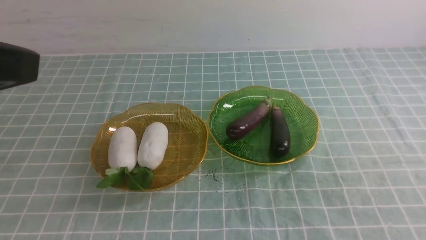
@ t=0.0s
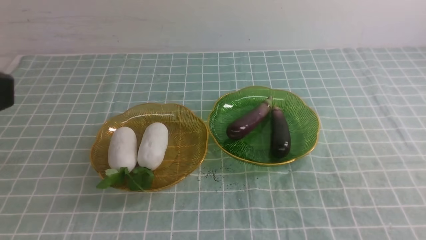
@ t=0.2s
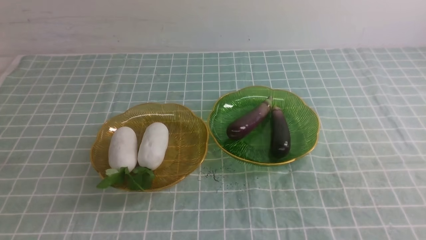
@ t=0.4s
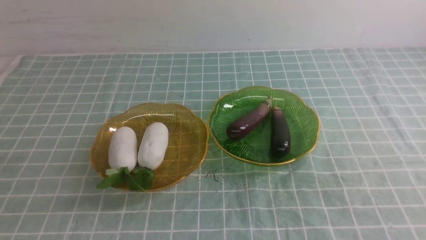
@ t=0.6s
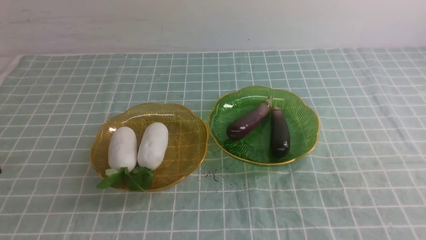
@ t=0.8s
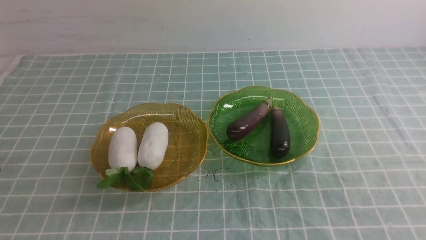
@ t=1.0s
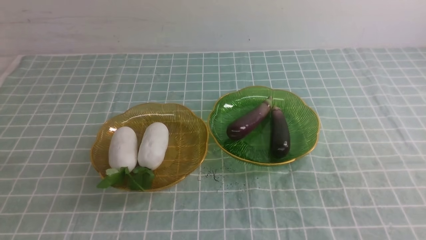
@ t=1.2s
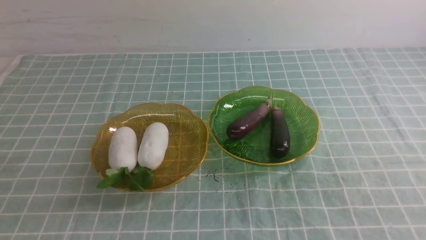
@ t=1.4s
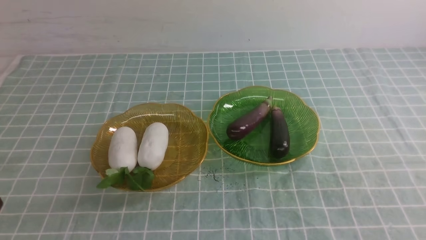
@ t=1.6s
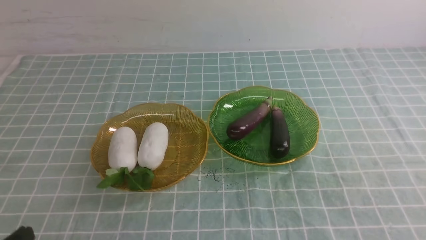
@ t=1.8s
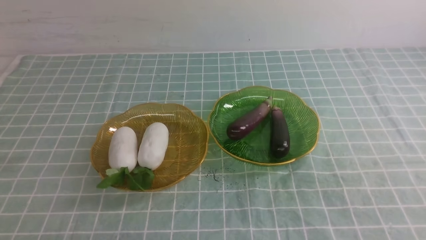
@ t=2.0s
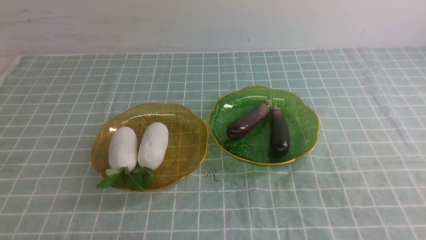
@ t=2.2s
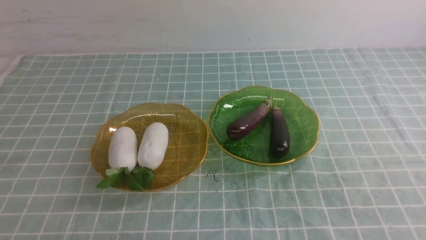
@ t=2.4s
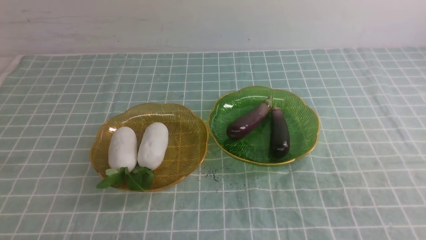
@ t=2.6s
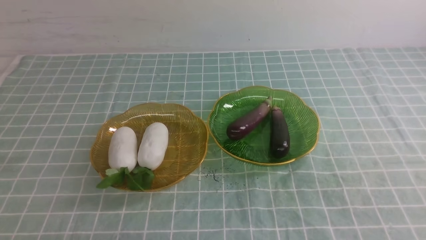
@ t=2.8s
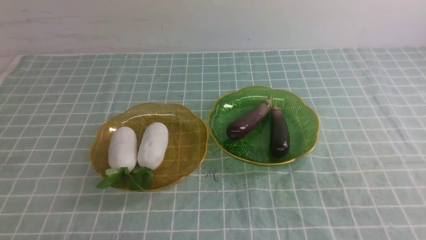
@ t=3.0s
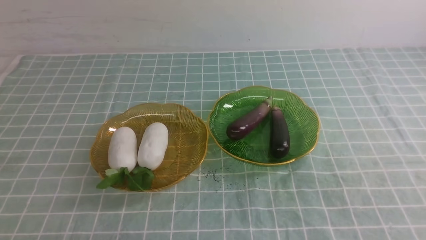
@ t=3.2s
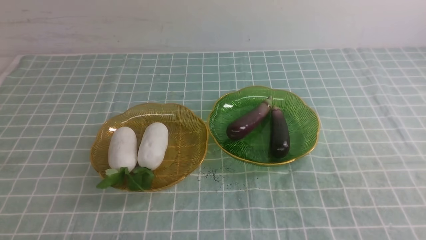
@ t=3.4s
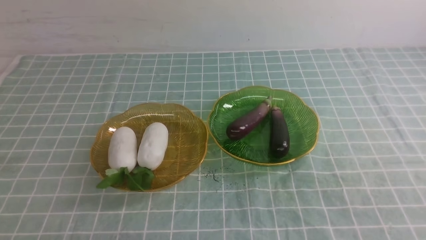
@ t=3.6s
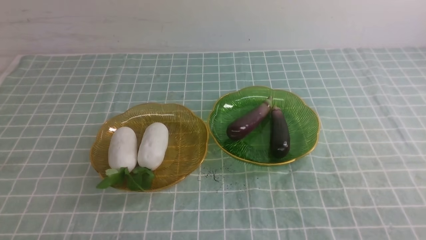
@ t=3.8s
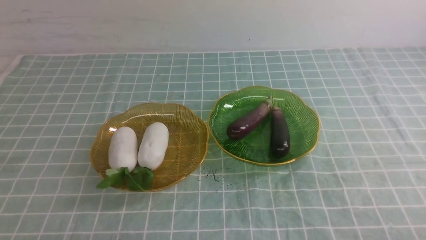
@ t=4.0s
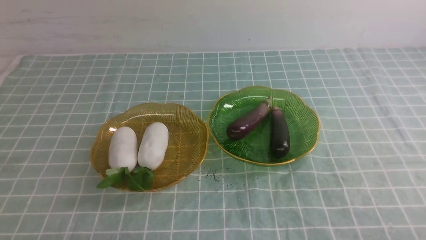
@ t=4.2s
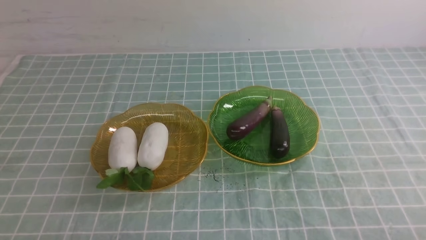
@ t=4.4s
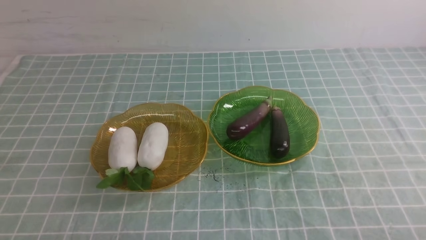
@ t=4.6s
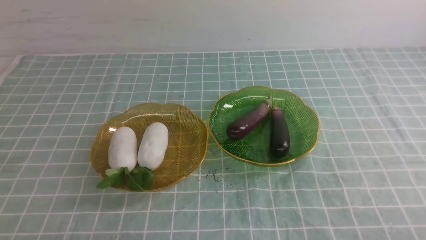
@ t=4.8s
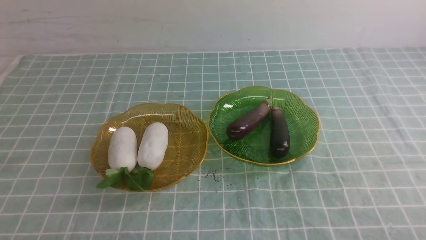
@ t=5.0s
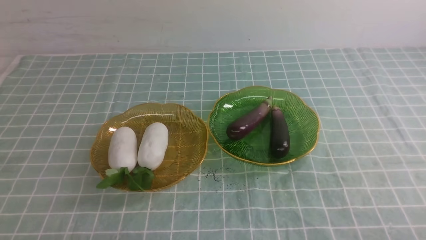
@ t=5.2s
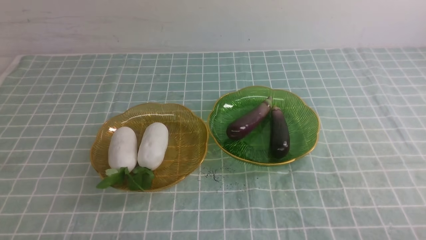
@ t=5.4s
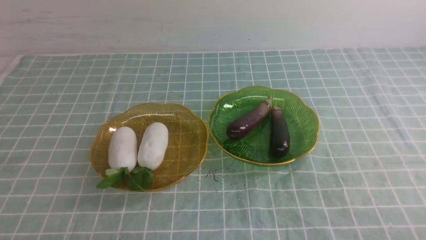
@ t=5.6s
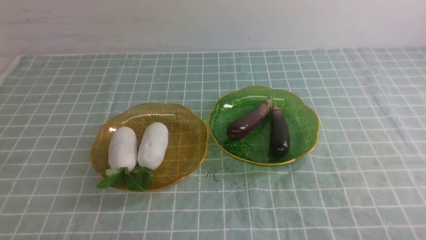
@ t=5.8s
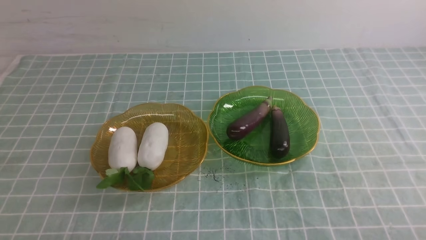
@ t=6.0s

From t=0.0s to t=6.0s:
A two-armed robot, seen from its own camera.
From t=0.0s to t=1.6s: The left gripper moves downward, roughly 20 cm.
From t=4.4s to t=6.0s: Both grippers stay put.

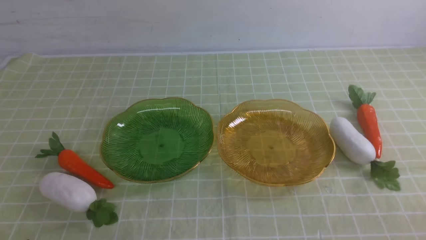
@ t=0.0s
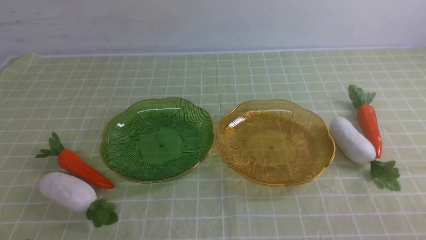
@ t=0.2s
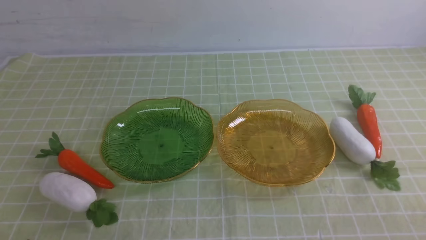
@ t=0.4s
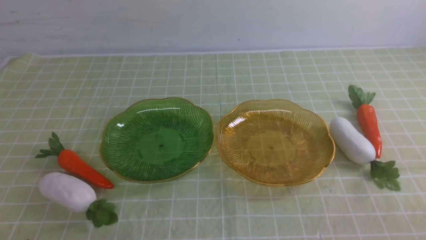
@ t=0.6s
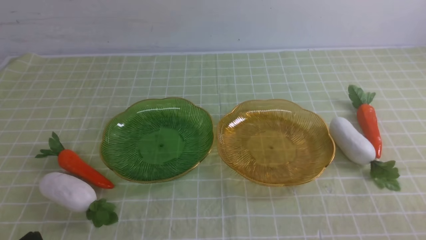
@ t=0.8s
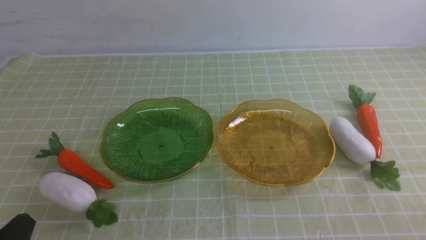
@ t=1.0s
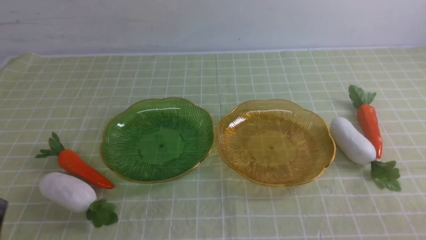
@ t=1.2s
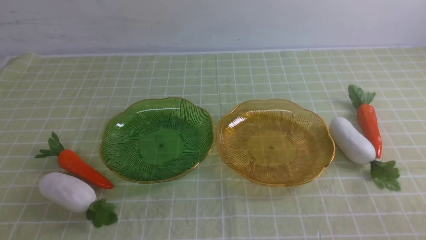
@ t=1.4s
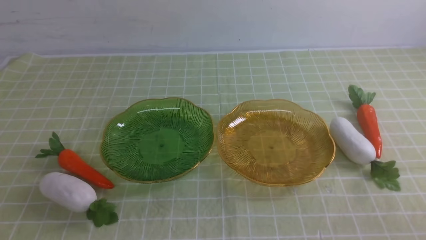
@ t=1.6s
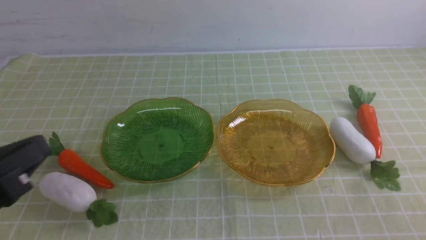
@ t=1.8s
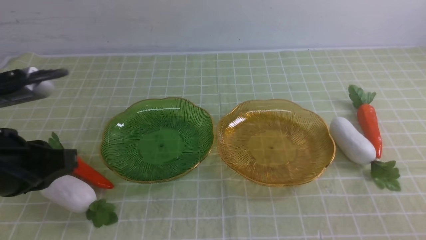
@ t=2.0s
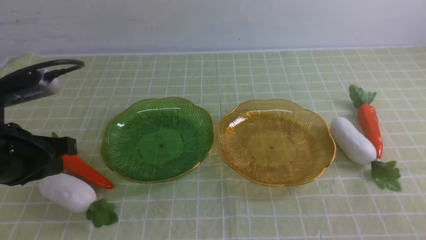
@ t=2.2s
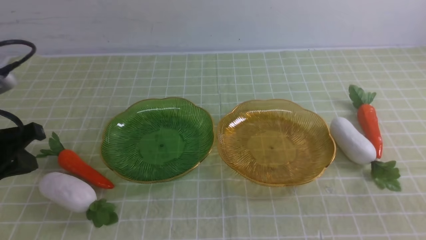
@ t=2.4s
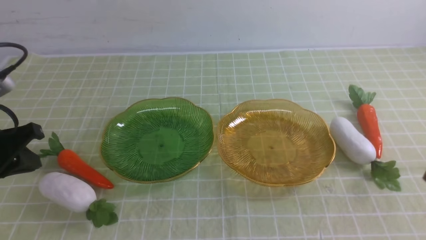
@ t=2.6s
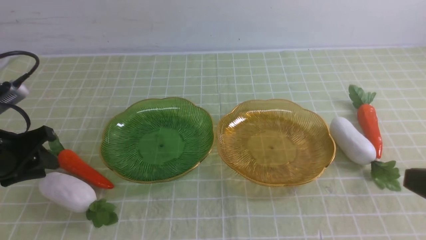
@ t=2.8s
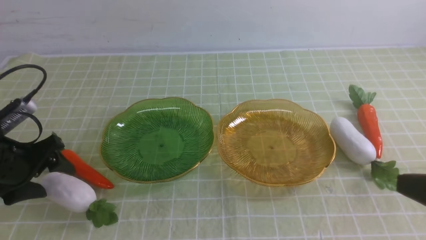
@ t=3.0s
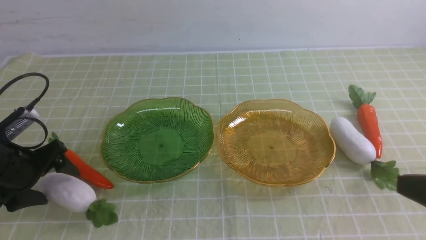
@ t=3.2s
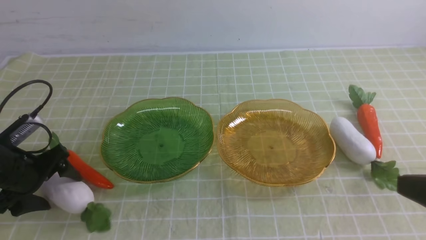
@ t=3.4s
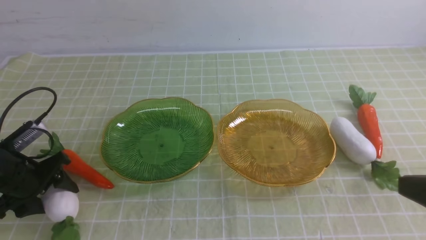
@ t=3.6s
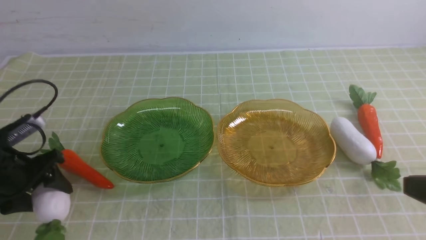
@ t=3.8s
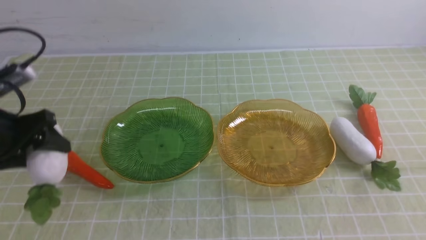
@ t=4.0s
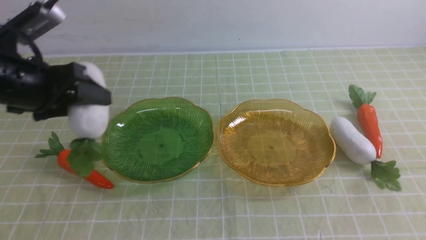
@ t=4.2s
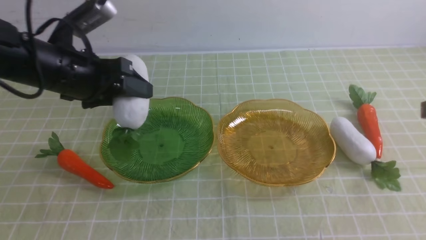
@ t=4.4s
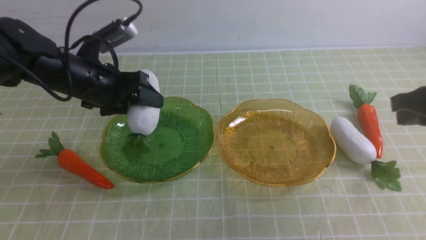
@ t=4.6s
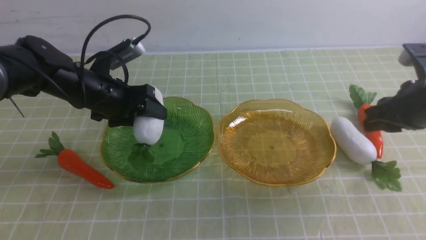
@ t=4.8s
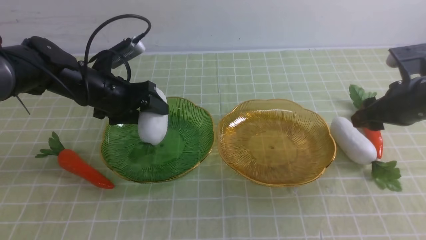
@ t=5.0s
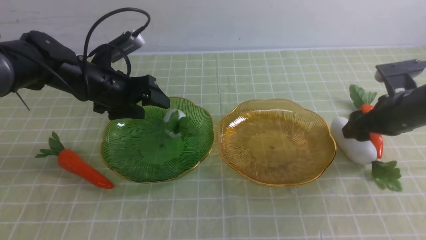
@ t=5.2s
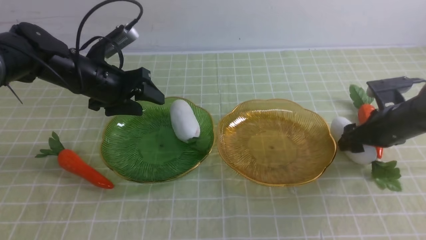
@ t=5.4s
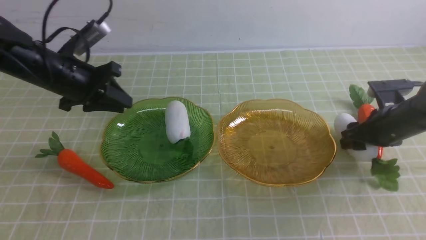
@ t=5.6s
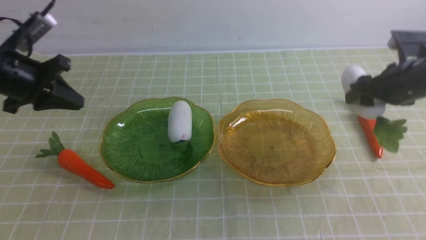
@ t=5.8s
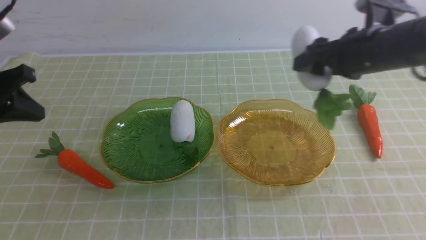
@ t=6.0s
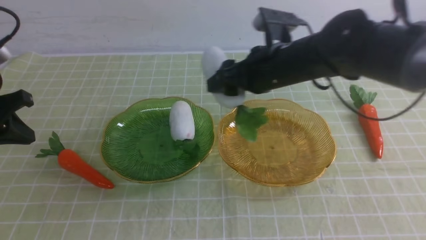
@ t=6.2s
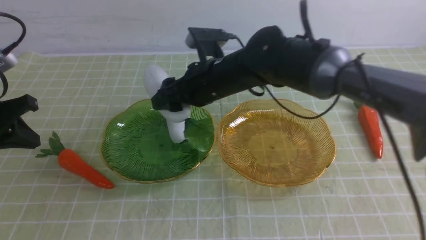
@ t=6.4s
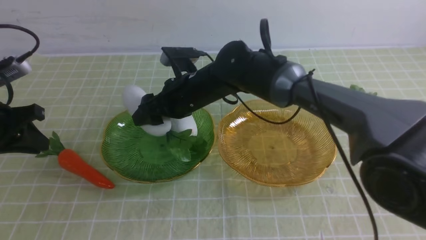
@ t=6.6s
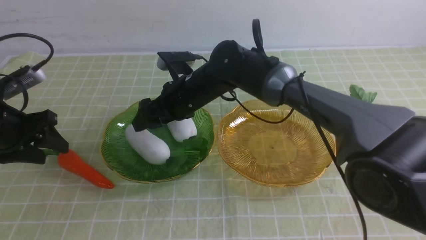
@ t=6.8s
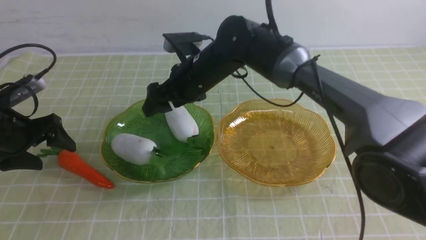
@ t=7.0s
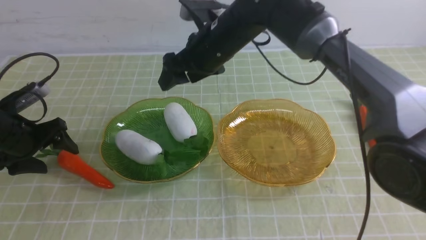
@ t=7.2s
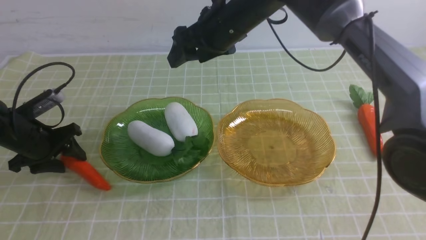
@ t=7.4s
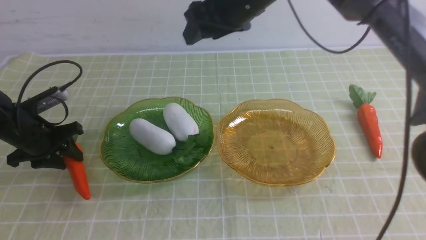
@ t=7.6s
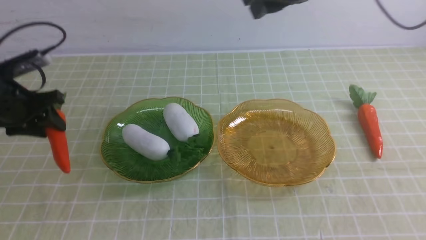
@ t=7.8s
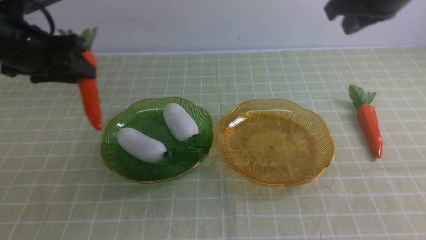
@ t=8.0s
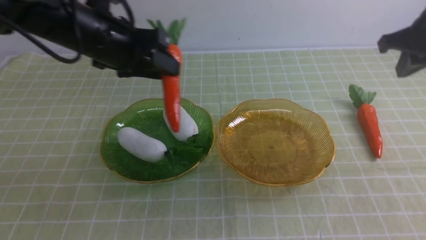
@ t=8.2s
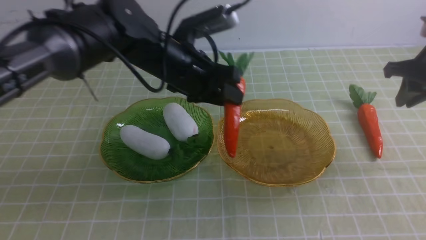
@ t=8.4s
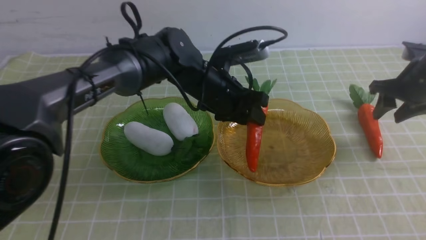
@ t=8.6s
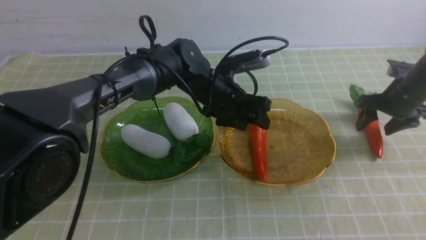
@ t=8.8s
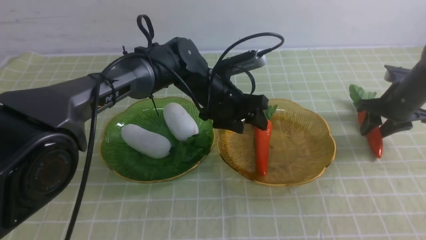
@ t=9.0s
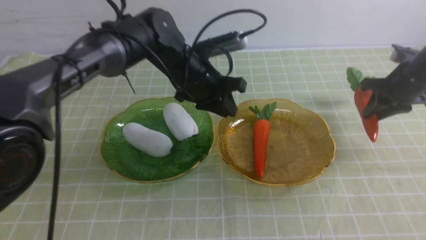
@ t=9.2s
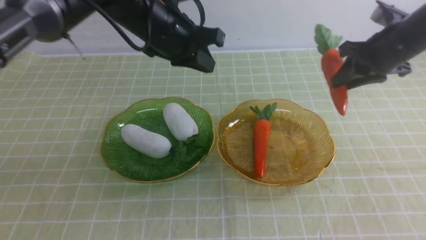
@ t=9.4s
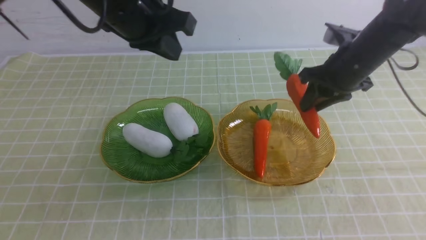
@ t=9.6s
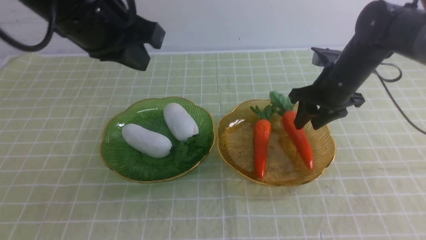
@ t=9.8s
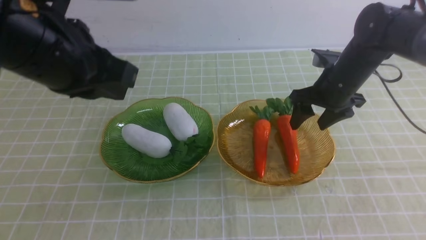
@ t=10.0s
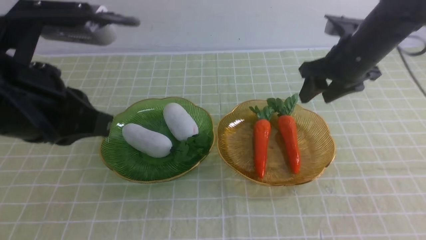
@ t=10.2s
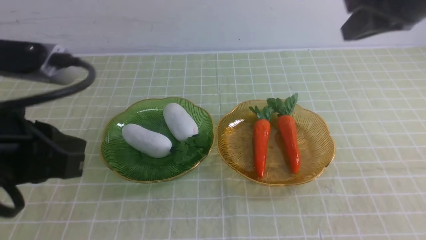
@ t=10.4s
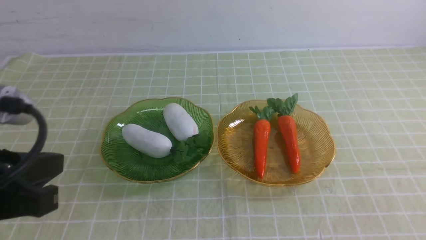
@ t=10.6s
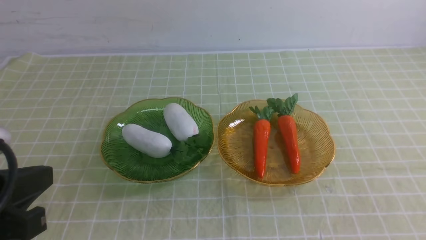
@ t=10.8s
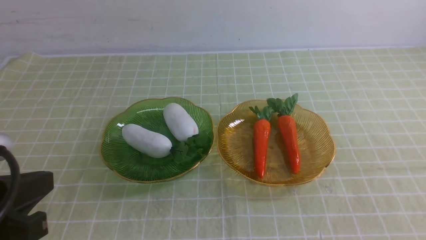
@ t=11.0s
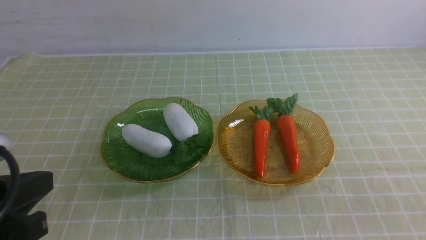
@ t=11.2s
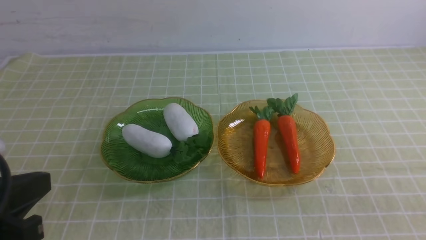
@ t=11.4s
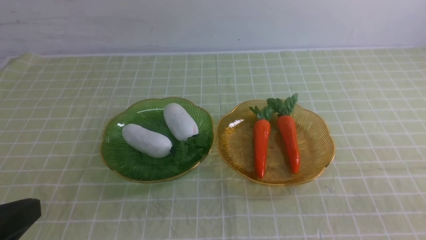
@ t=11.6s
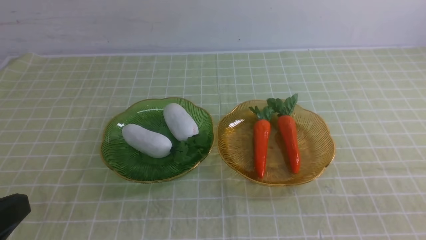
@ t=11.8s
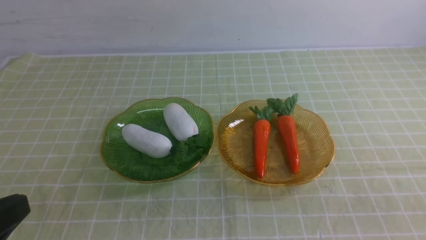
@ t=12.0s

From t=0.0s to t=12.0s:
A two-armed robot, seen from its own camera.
Step, from t=0.0s to t=5.2s: use the left arm to grab a radish and put it into the left plate.
Step, from t=5.4s to t=7.4s: use the right arm to grab a radish and put it into the left plate.
Step, from t=7.8s to t=9.4s: use the left arm to grab a carrot and put it into the right plate.
Step, from t=9.6s to t=11.0s: use the right arm to grab a carrot and put it into the right plate.
From t=1.6s to t=3.0s: The right gripper heads upward and forward, covering roughly 10 cm. Meanwhile the left gripper heads forward and downward, covering about 25 cm, and opens its fingers.
From t=3.0s to t=4.4s: The left gripper heads to the right, upward and forward, covering approximately 15 cm; the right gripper is displaced forward by approximately 10 cm.
From t=4.4s to t=6.0s: The right gripper heads forward and to the left, covering some 20 cm, moves about 15 cm downward and comes back, and opens. Meanwhile the left gripper shifts some 10 cm to the left, and closes its fingers.
From t=6.0s to t=7.6s: The left gripper is displaced downward by approximately 10 cm, and opens its fingers. The right gripper is displaced to the left and upward by approximately 15 cm.
From t=7.6s to t=9.0s: The left gripper heads to the right, covering approximately 30 cm; the right gripper heads to the right and downward, covering approximately 35 cm, and closes, then reopens.
From t=9.0s to t=10.4s: The left gripper shifts about 35 cm backward, to the left and upward, and closes up; the right gripper heads upward, backward and to the left, covering about 30 cm, and closes.
From t=10.4s to t=12.0s: The right gripper goes some 30 cm backward and downward, while the left gripper travels backward and downward by roughly 10 cm.
